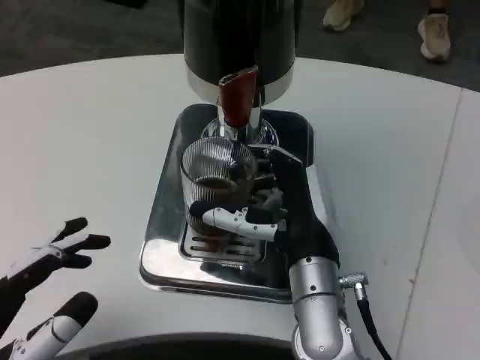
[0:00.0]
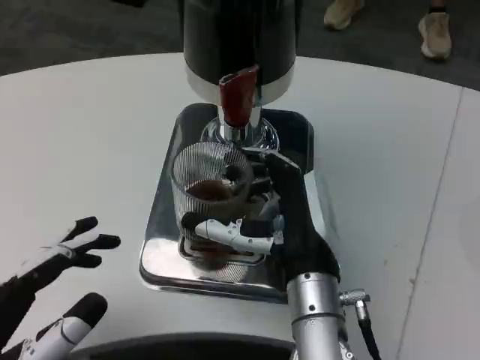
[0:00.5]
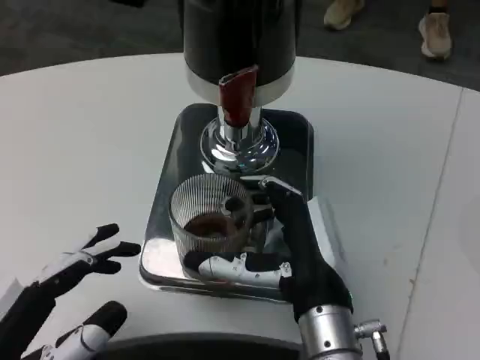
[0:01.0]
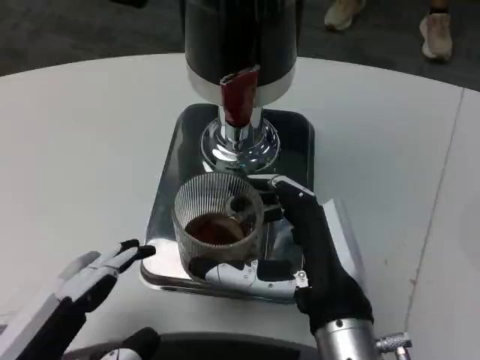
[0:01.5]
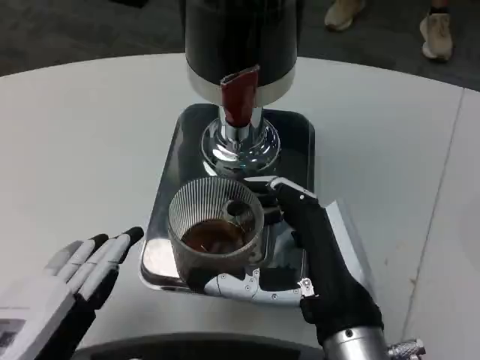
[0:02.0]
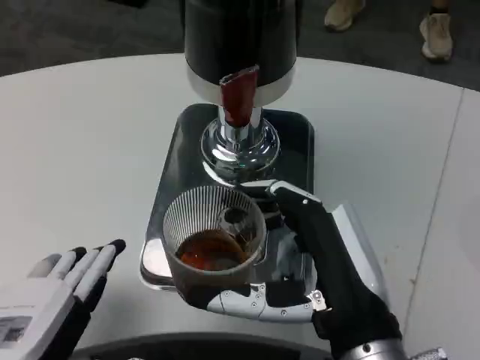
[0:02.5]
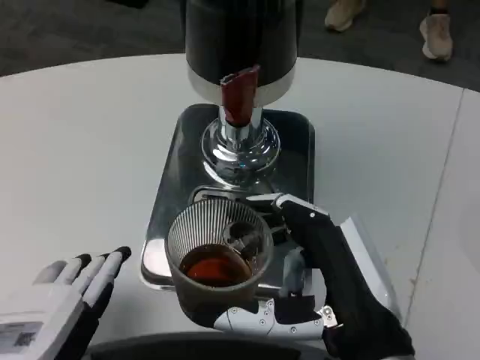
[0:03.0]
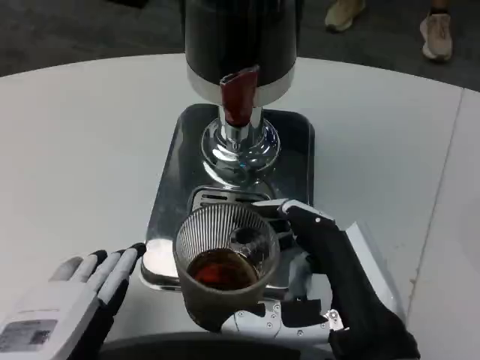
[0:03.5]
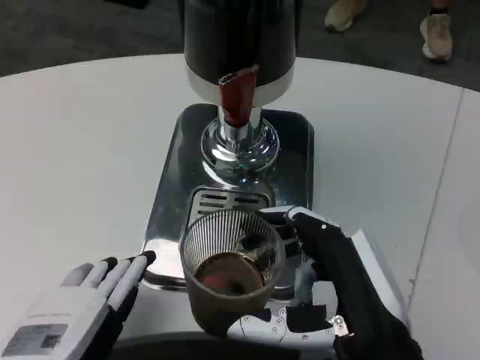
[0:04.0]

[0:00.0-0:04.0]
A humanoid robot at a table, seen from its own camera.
Task of the whole recording: Grasp the cup under the faucet to collect the drink, then remove the cup.
0:00.0 to 0:02.0: The right hand is displaced backward by approximately 10 cm.

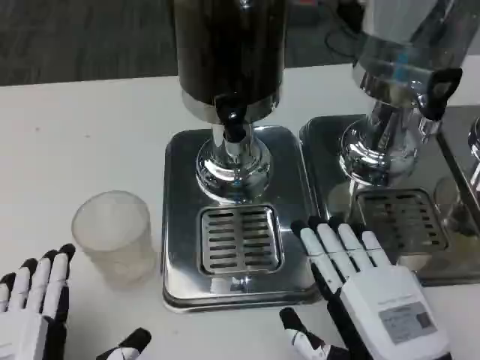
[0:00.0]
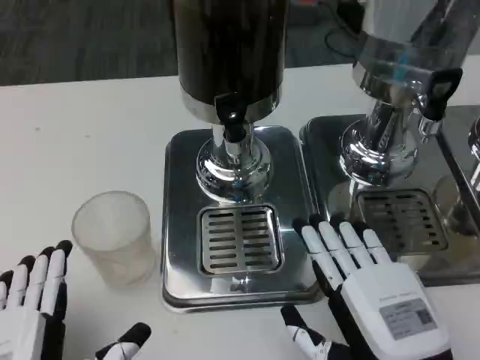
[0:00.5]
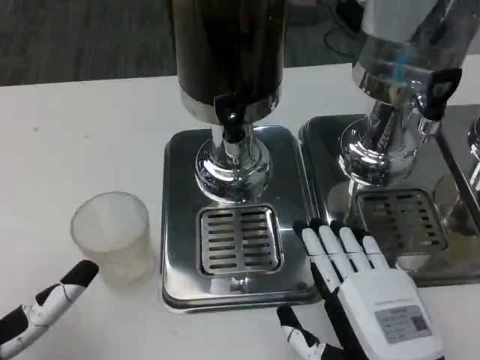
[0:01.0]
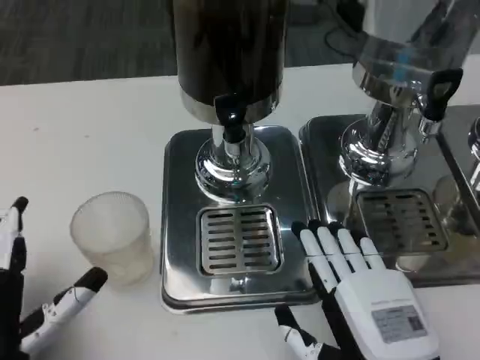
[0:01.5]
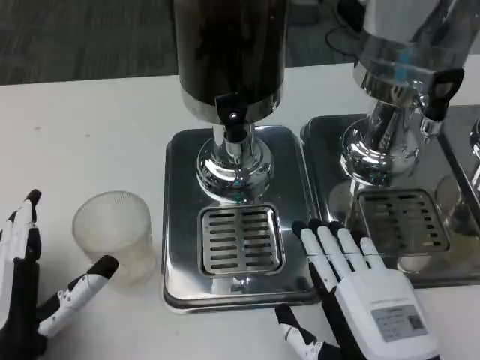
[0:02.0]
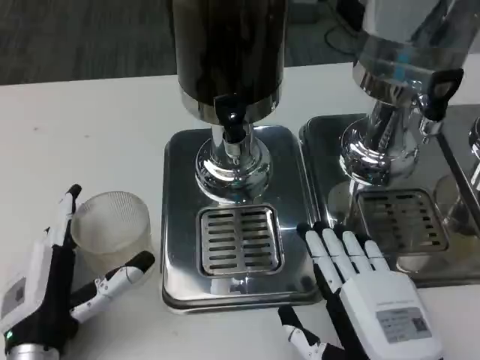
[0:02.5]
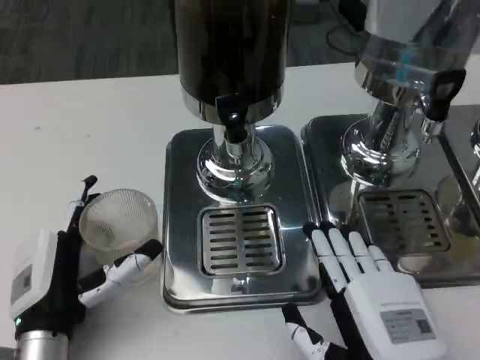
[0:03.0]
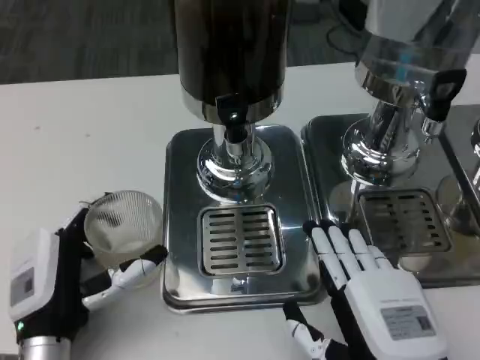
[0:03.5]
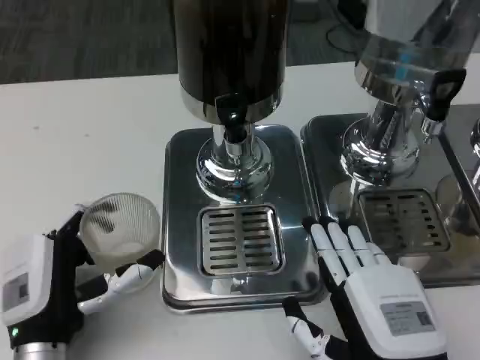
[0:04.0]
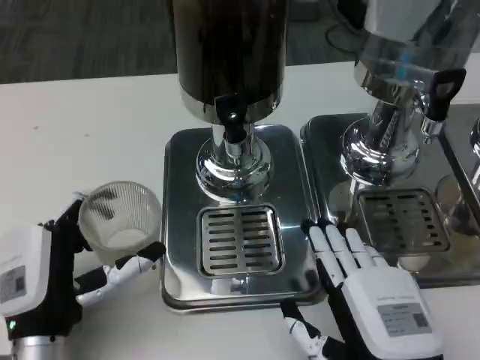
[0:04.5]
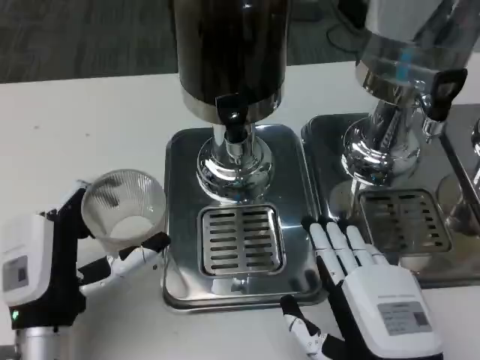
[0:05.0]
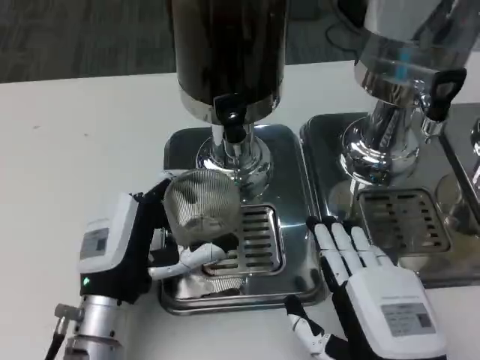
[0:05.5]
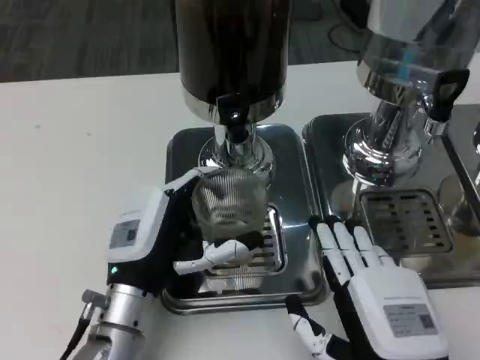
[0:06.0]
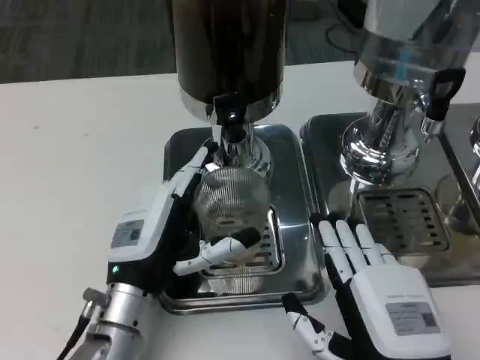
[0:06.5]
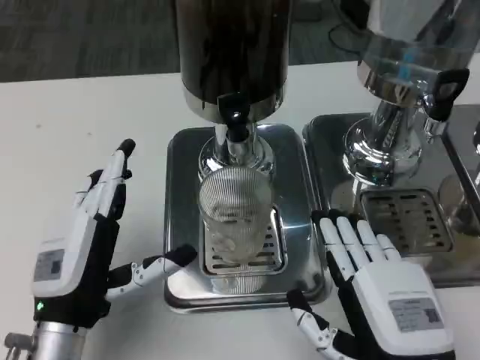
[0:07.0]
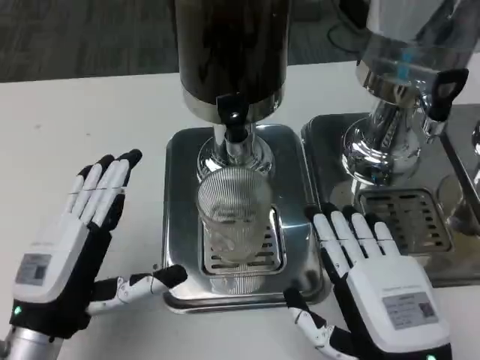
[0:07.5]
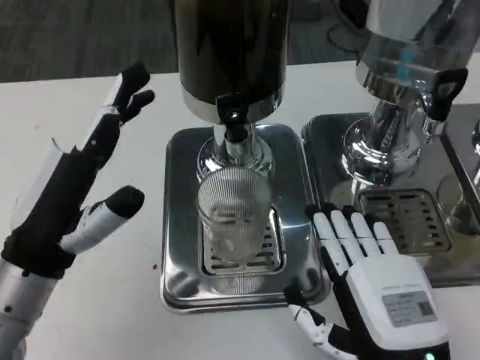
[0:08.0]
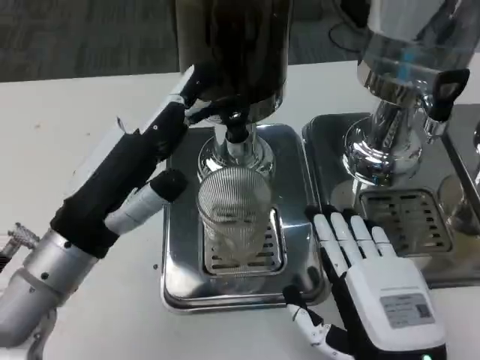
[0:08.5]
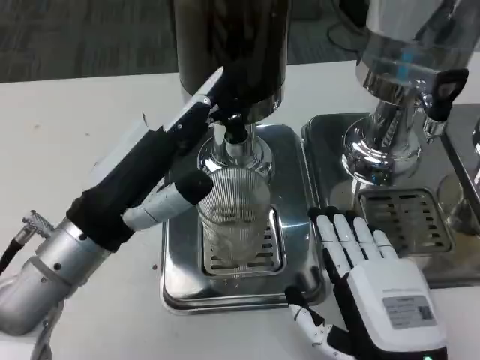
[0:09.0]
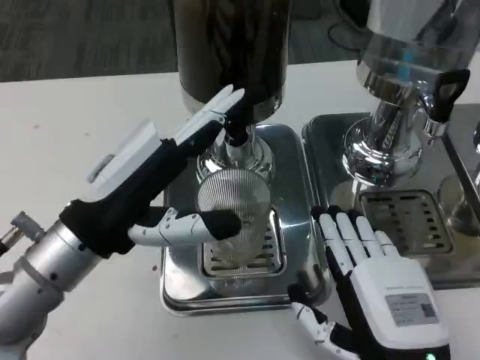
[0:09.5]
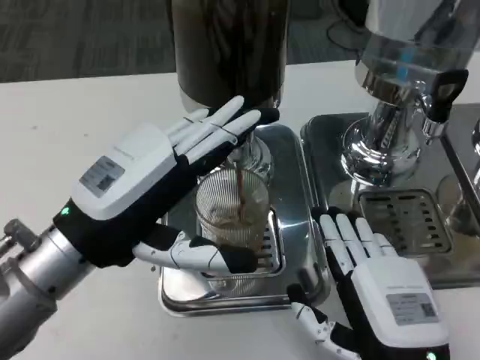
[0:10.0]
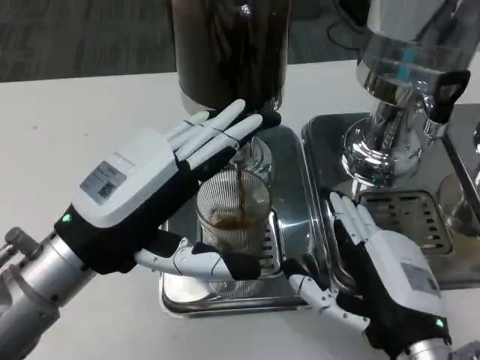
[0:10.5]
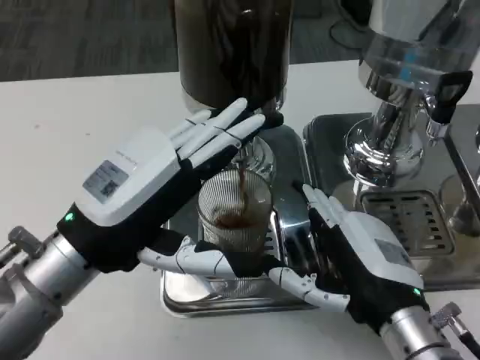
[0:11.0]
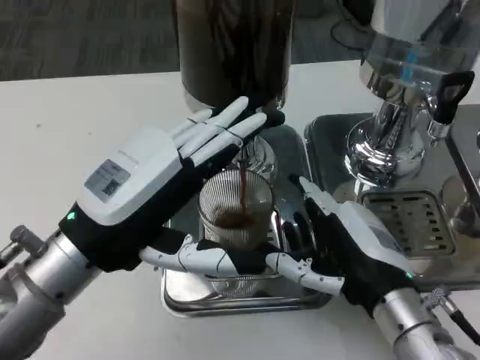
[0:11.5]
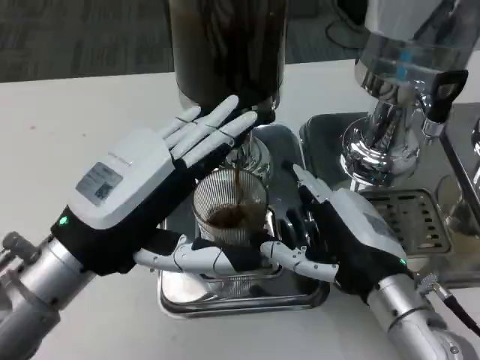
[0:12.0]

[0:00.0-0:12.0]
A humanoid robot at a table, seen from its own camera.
Task of the whole recording: Grasp the cup under the faucet to collect the drink, then remove the cup.
0:00.0 to 0:02.0: The left hand is displaced forward by roughly 10 cm.
0:02.0 to 0:04.0: The hands stay close to where they were, moving slightly.
0:04.0 to 0:06.0: The left hand is displaced to the right and forward by about 10 cm.
0:06.0 to 0:08.0: The left hand heads upward and to the left, covering some 10 cm.
0:10.0 to 0:12.0: The right hand is displaced forward by approximately 10 cm.

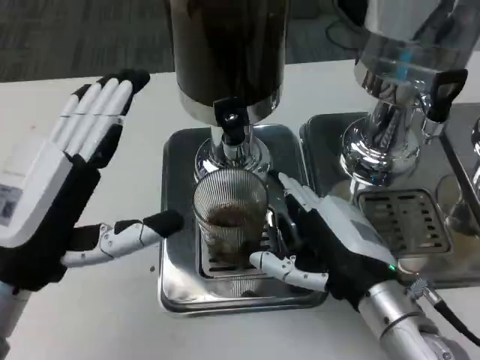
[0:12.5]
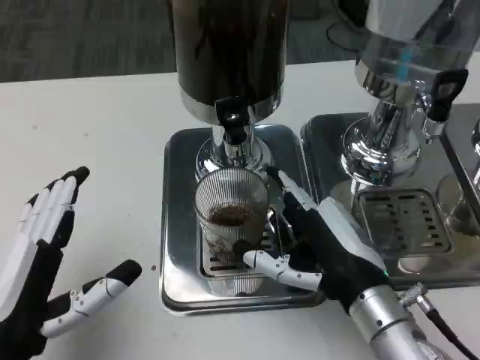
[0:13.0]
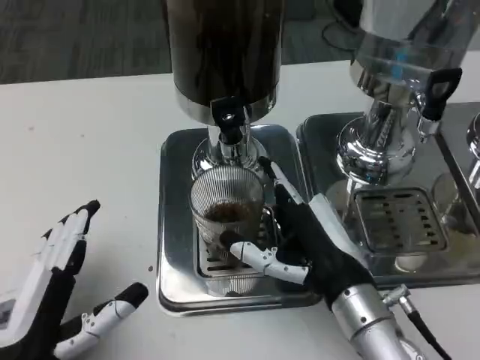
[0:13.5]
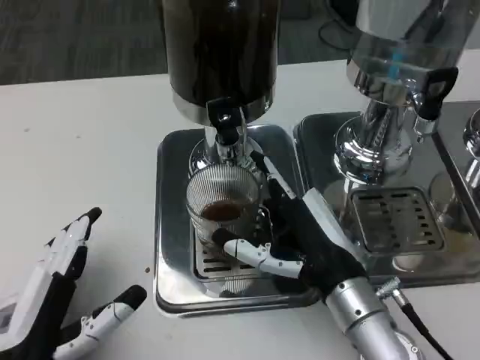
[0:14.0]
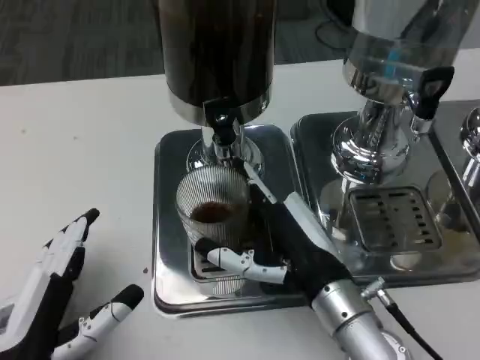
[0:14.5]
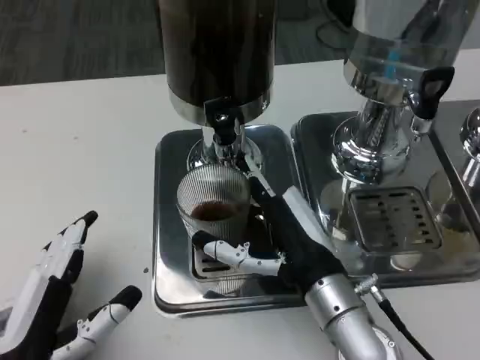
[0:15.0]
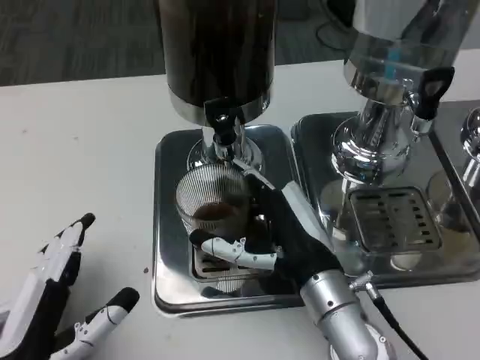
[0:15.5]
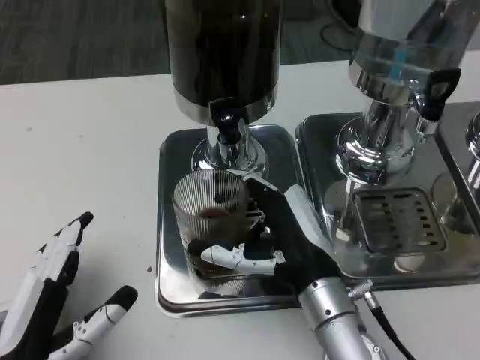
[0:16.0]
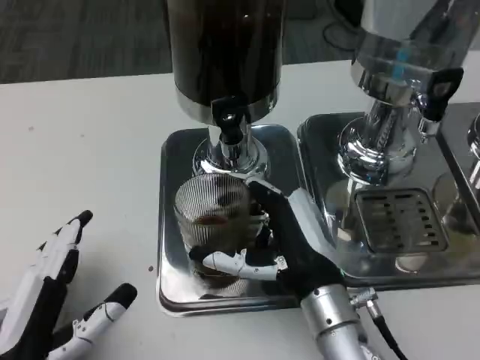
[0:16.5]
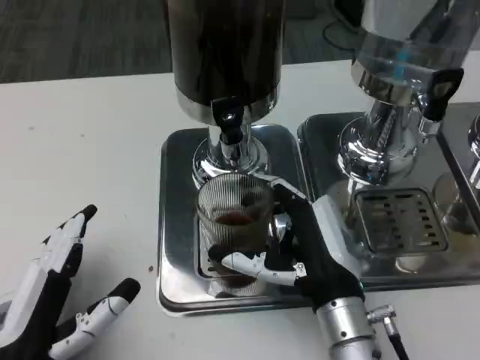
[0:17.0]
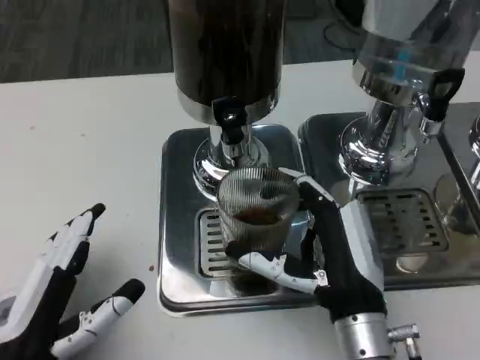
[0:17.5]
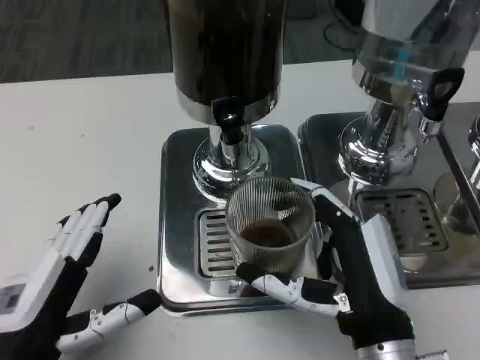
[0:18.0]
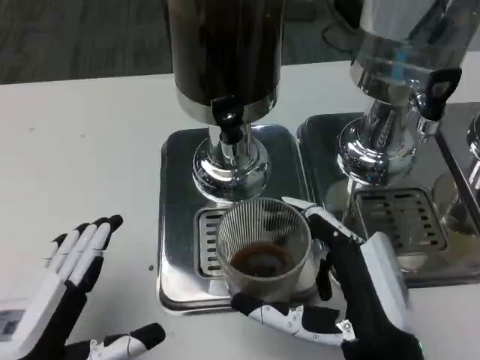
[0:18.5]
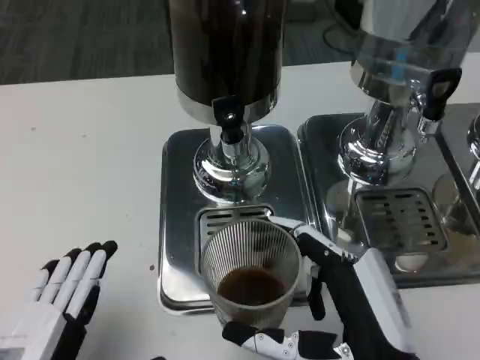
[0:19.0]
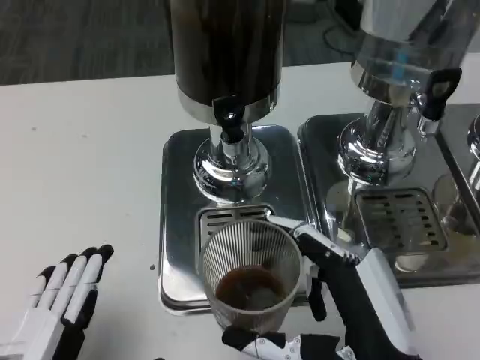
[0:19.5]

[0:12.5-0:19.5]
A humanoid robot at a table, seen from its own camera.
Task of the whole recording: Grasp the cup under the faucet to collect the drink, then remove the cup.
0:12.5 to 0:14.5: The left hand shifts roughly 10 cm downward and backward.
0:17.5 to 0:19.5: Both hands move backward, roughly 5 cm.

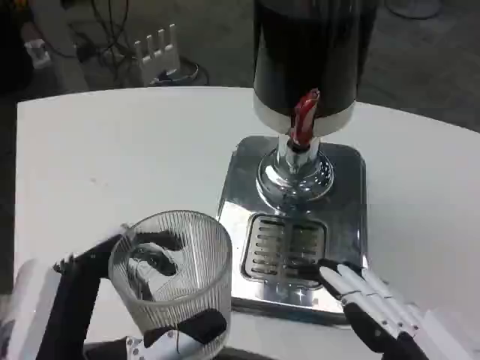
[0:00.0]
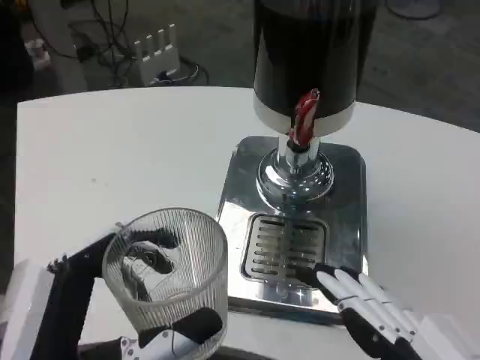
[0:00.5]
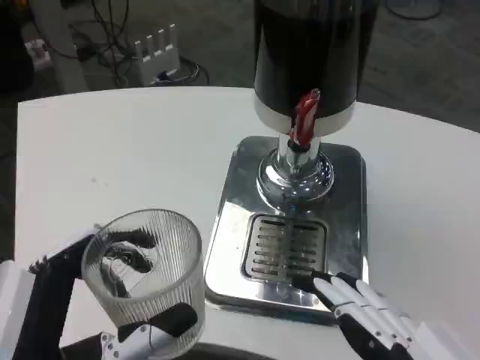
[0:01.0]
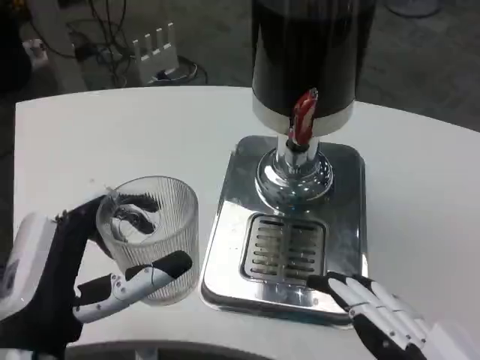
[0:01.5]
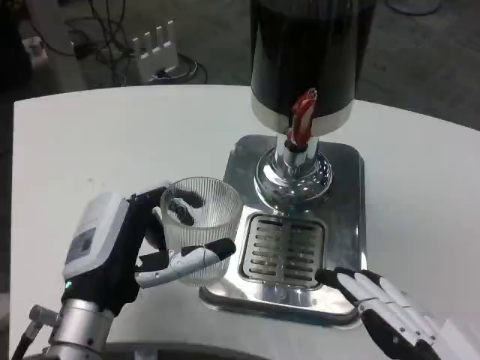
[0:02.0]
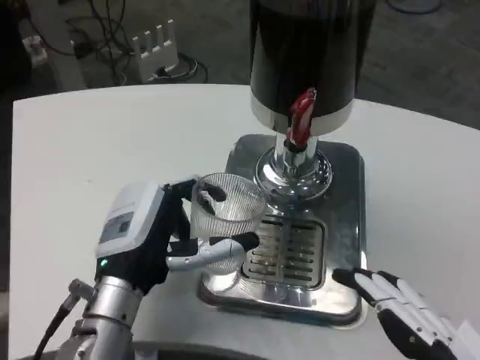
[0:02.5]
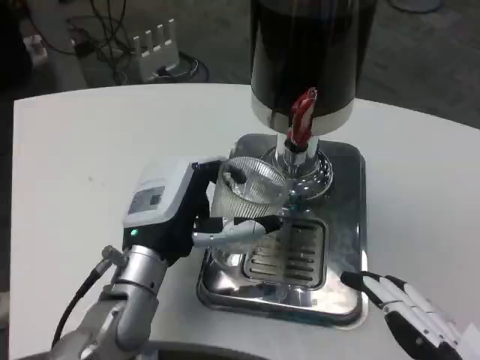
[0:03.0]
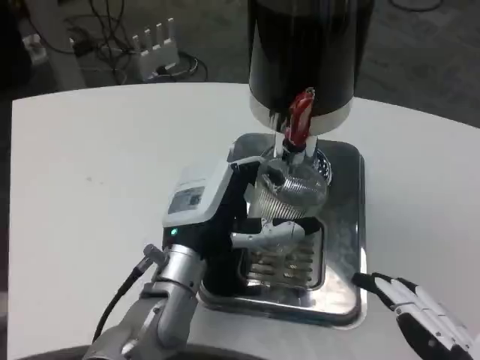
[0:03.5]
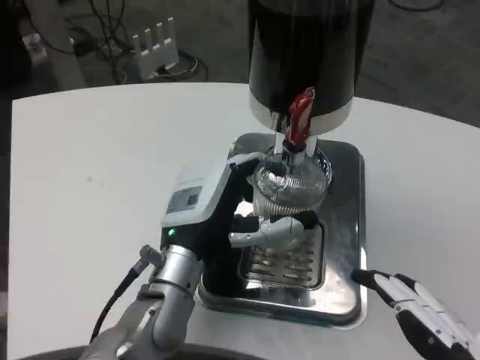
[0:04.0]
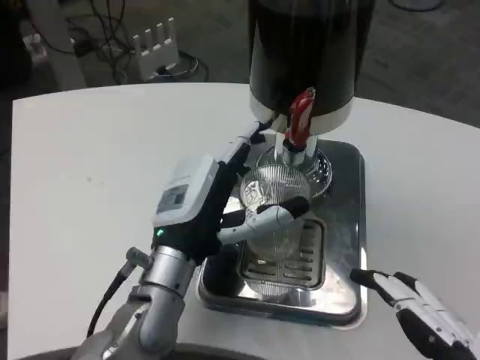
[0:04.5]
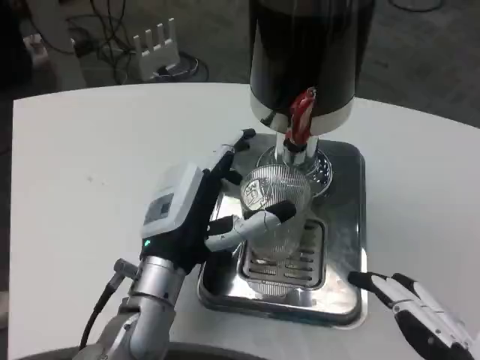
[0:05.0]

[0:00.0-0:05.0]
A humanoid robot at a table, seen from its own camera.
Task of the whole recording: Grasp the cup under the faucet to collect the drink, then remove the cup.
0:00.0 to 0:02.5: The left hand travels forward by about 15 cm.
